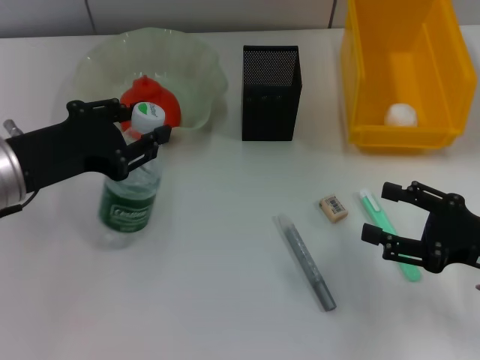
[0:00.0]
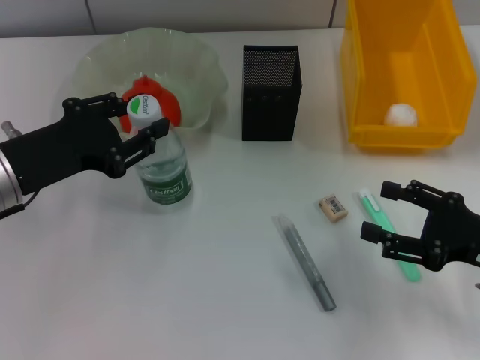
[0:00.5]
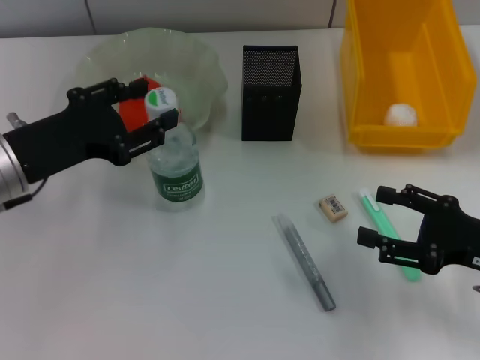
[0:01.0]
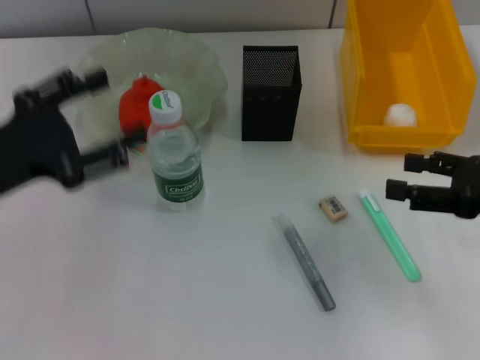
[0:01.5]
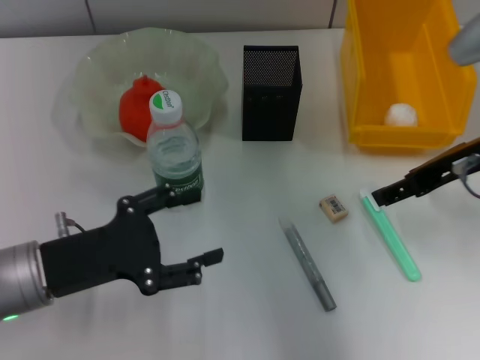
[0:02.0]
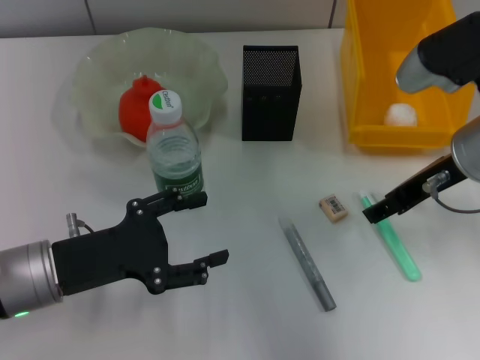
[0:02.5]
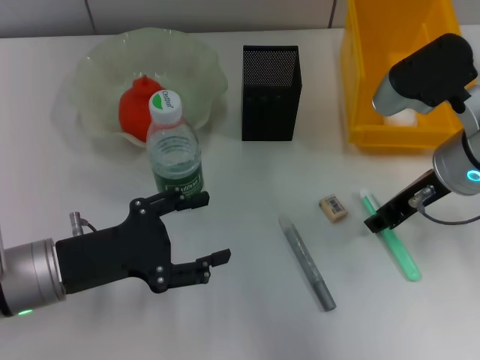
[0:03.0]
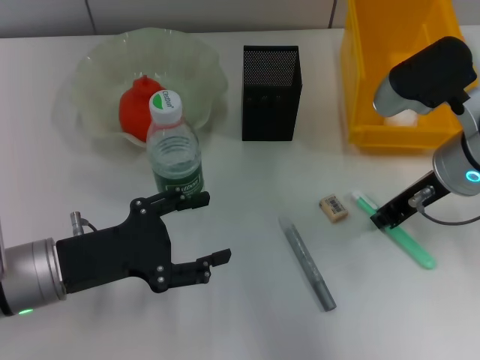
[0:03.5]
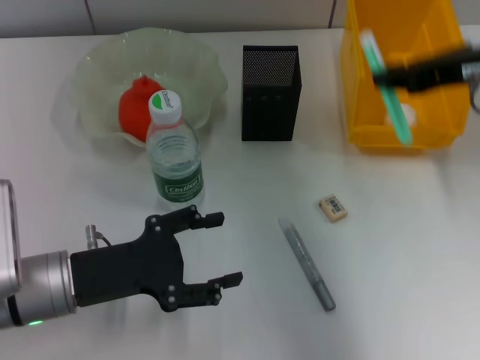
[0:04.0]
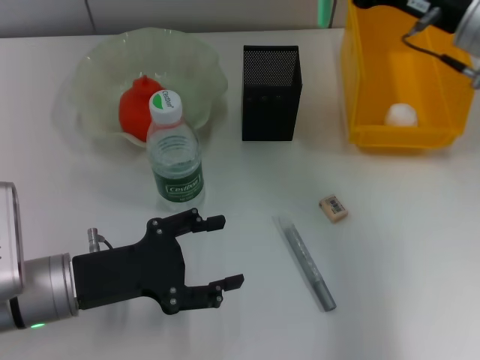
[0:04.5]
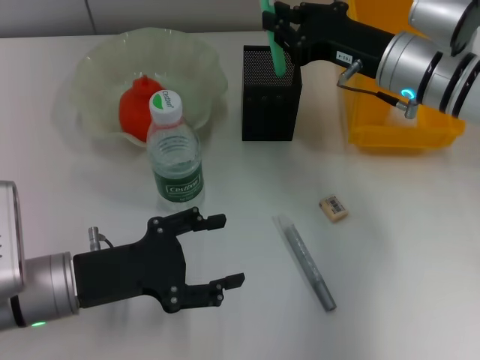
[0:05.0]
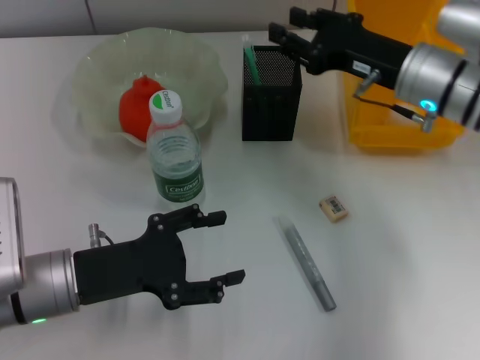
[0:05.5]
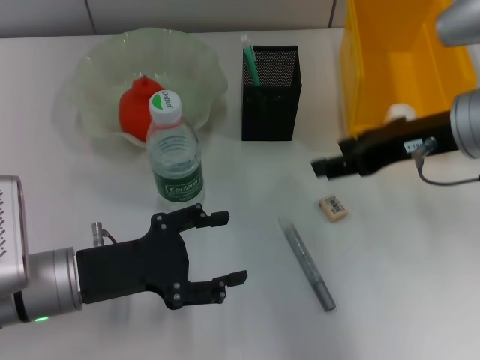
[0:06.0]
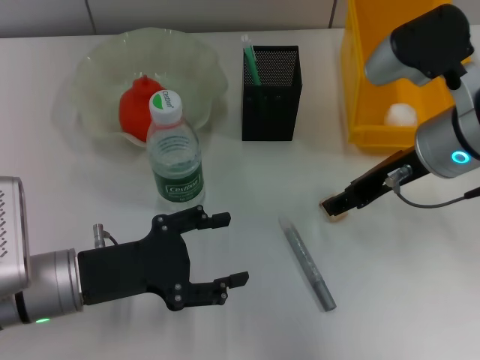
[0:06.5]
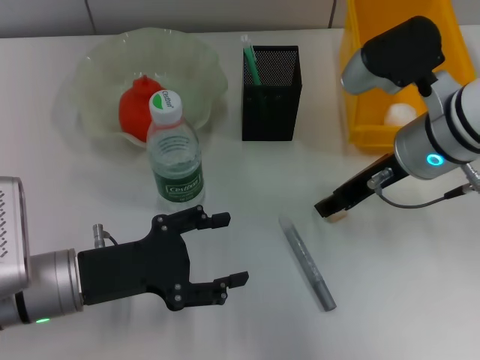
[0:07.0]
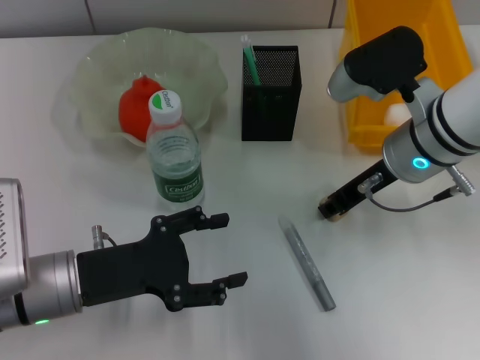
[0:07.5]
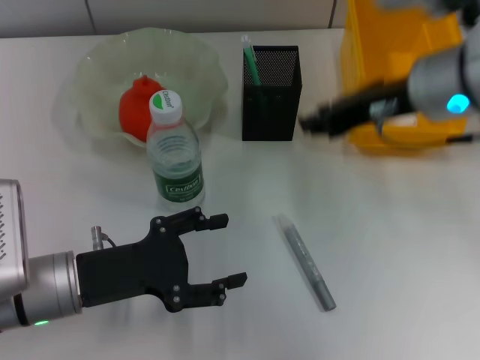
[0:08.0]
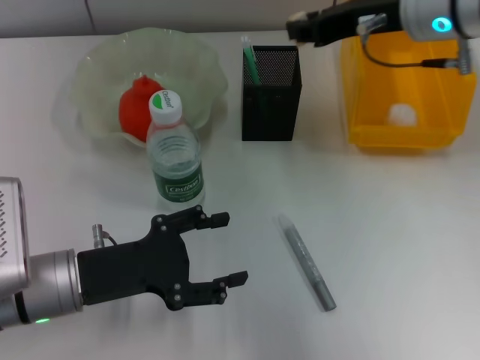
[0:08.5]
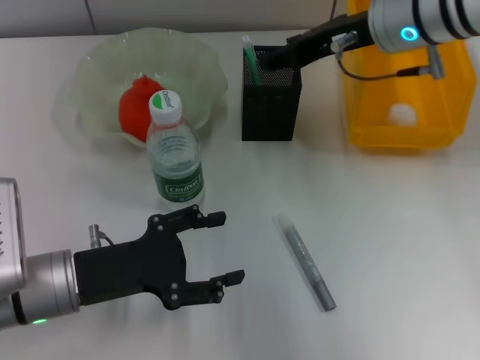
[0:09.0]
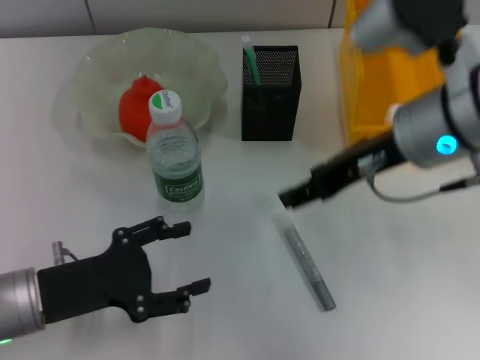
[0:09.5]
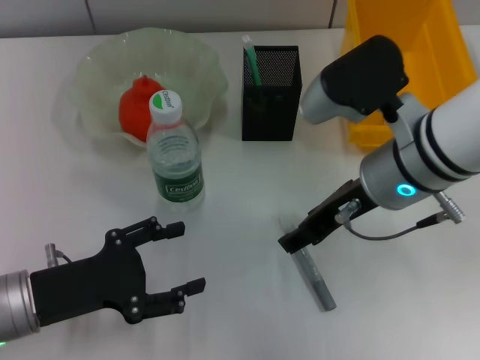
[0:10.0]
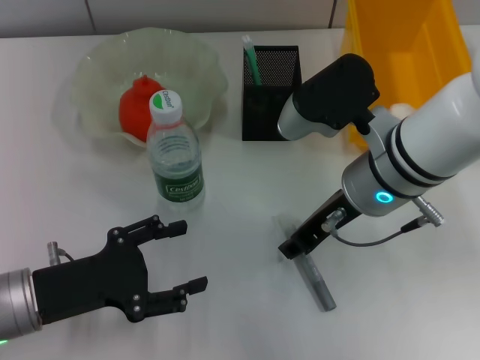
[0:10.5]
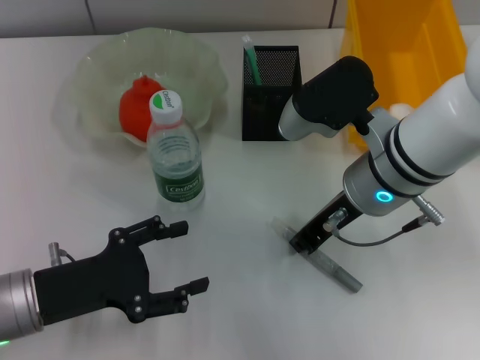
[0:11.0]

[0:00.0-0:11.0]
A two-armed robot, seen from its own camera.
Step, 0:01.0 to 0:03.0: Grab the blue utility knife with the right hand.
Step, 0:03.5 to 0:05.0: Place the blue utility knife into the pen holder with the right hand.
Step, 0:05.5 to 0:07.5: Grab the eraser with the right hand.
Step, 0:08.0 to 0:08.5: Put the eraser into the pen holder with the right hand.
Step, 0:09.0 to 0:11.0: Grab the gray glue with the right hand.
0:00.0 to 0:02.0: The left gripper shifts roughly 5 cm downward, and opens up. Meanwhile the right gripper is displaced upward, forward and to the left by about 15 cm.
0:02.0 to 0:03.5: The right gripper ends up roughly 5 cm from where it was, and closes its fingers.
0:03.5 to 0:05.5: The right gripper moves some 10 cm upward and comes back.
0:07.5 to 0:09.0: The right gripper heads upward and forward, covering about 10 cm.
0:09.0 to 0:11.0: The right gripper shifts some 10 cm backward and downward, and closes its fingers.

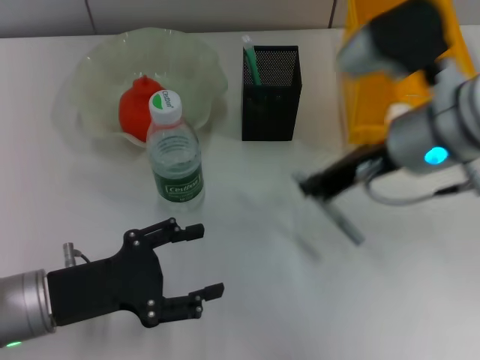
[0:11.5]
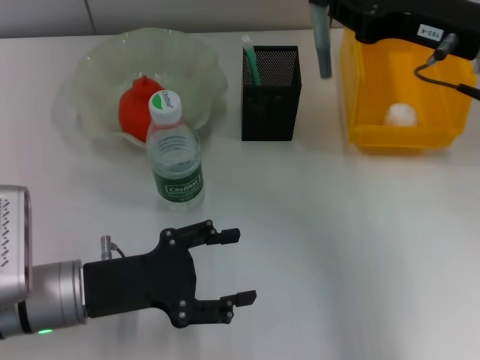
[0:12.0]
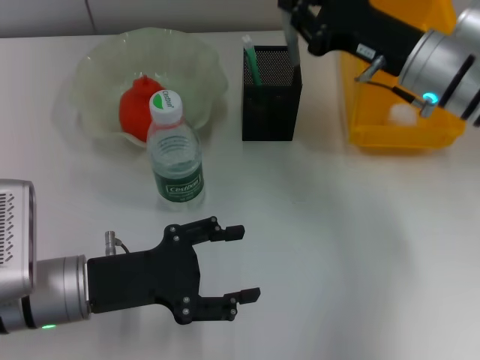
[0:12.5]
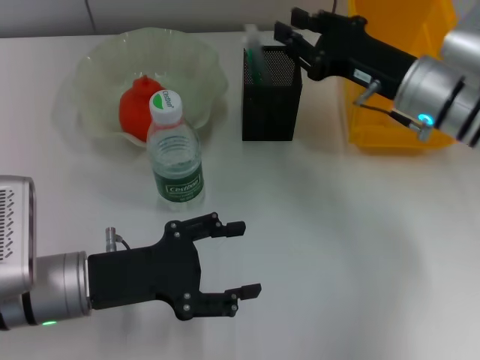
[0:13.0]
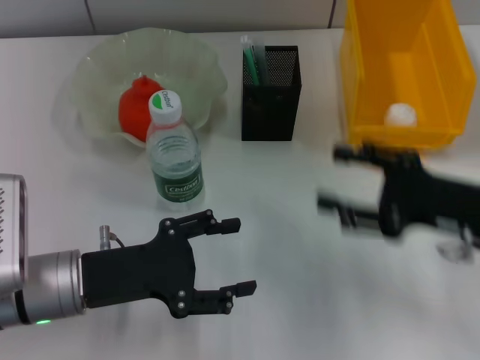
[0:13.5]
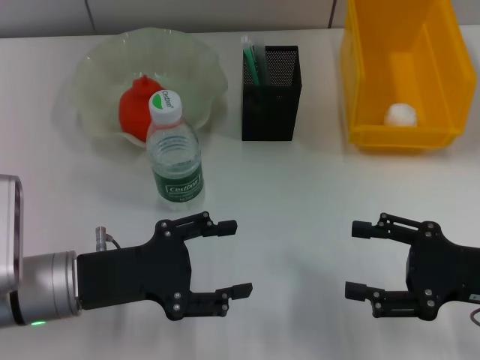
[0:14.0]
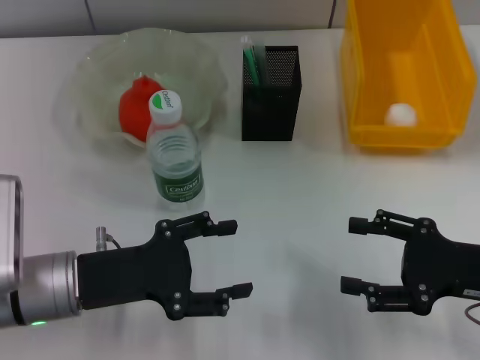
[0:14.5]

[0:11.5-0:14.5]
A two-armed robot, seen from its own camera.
Step, 0:11.5 to 0:12.5: Place the gray glue into the pen holder with the right hand.
0:11.5 to 0:13.0: The right gripper travels downward and forward by some 10 cm.
0:13.0 to 0:14.5: The right gripper moves backward and to the right, some 15 cm, and opens.
